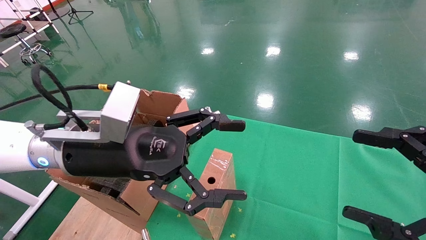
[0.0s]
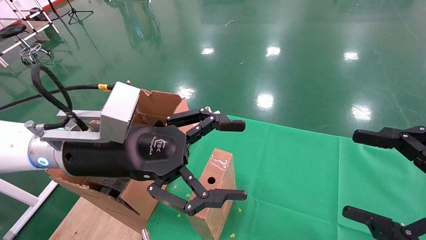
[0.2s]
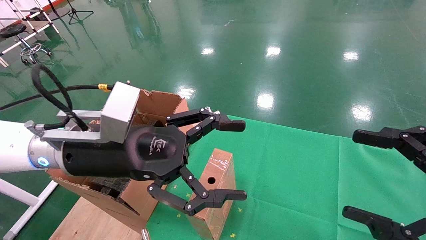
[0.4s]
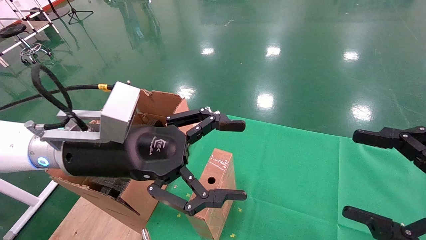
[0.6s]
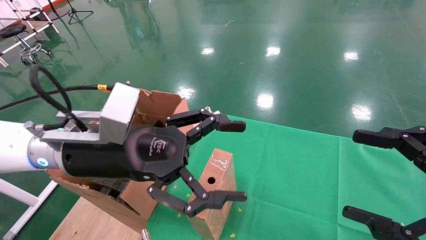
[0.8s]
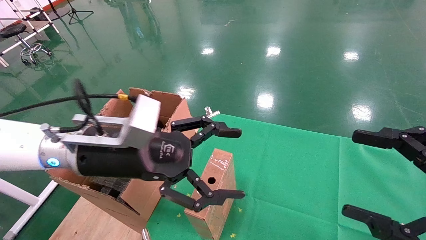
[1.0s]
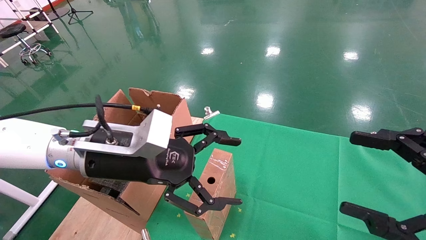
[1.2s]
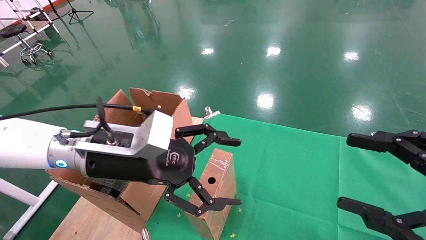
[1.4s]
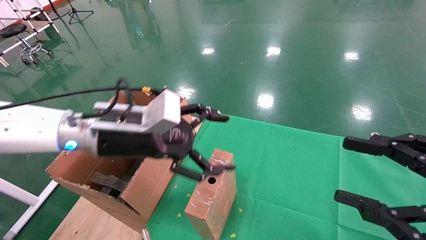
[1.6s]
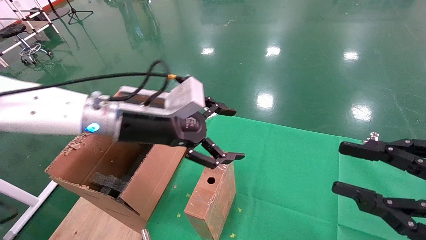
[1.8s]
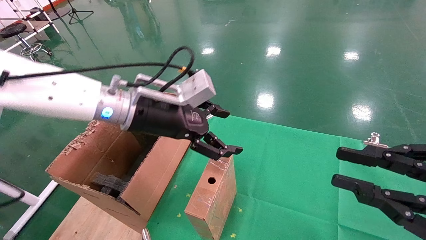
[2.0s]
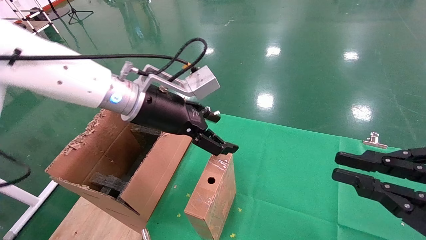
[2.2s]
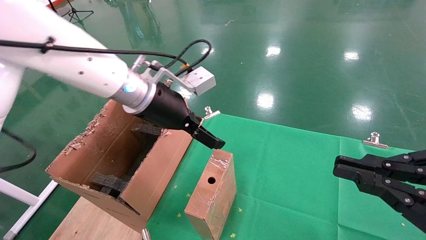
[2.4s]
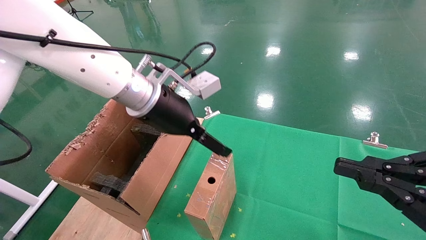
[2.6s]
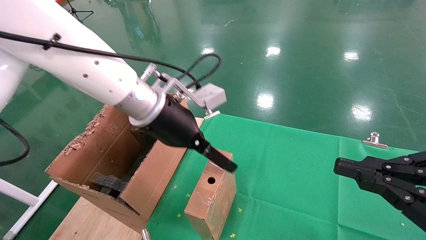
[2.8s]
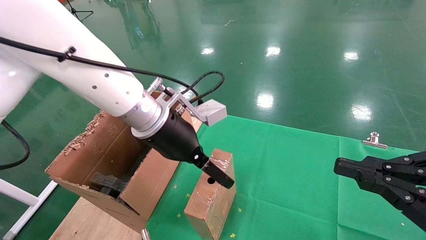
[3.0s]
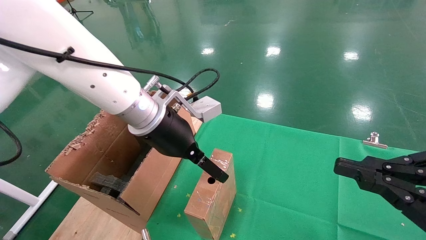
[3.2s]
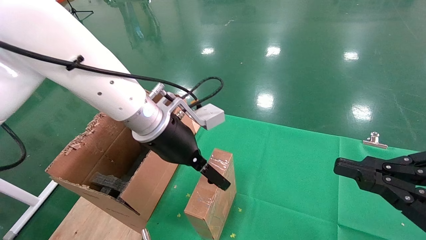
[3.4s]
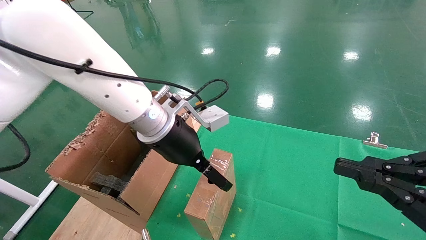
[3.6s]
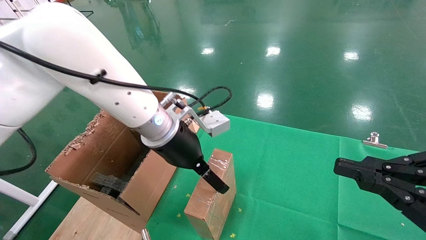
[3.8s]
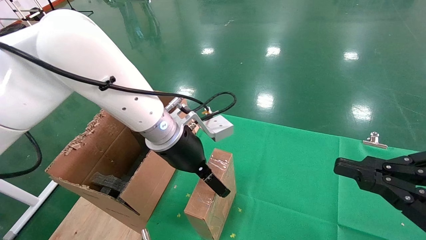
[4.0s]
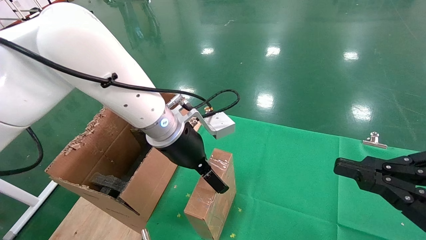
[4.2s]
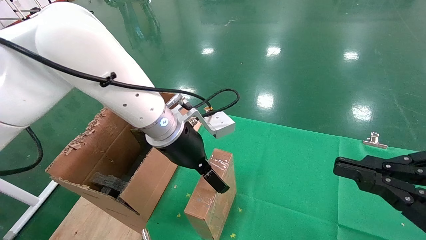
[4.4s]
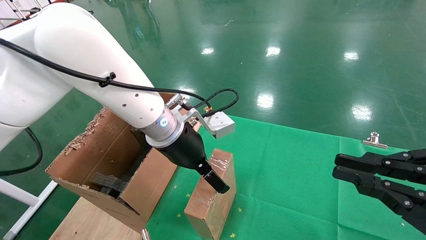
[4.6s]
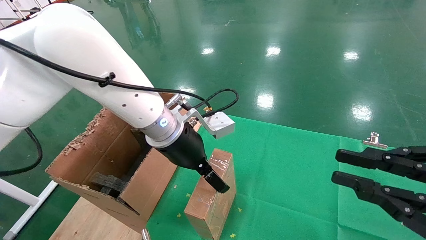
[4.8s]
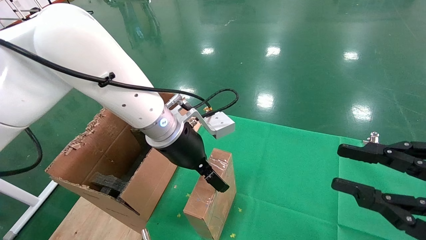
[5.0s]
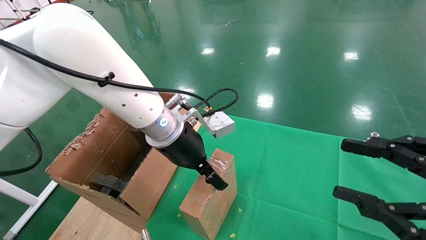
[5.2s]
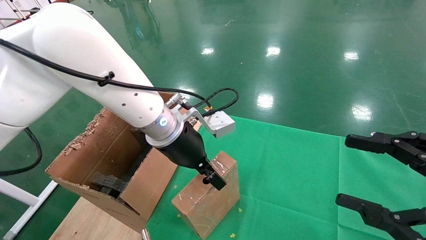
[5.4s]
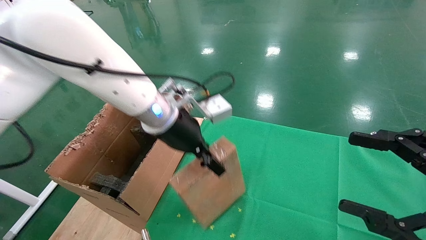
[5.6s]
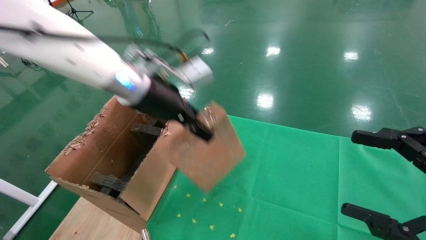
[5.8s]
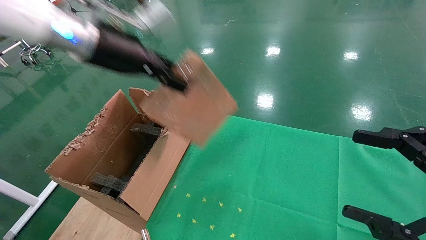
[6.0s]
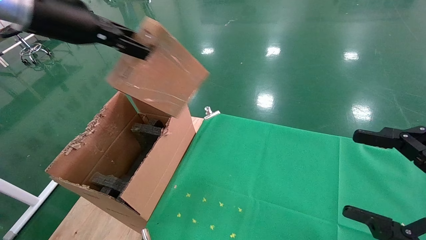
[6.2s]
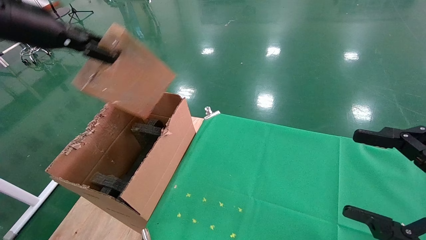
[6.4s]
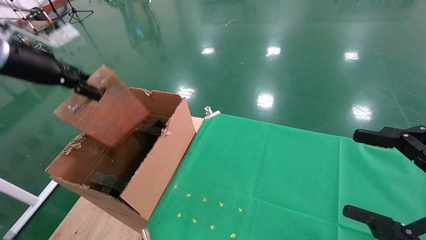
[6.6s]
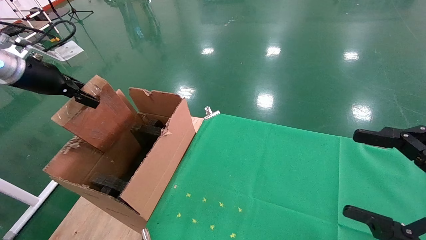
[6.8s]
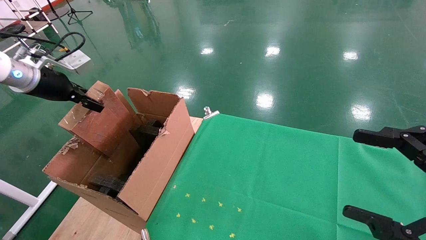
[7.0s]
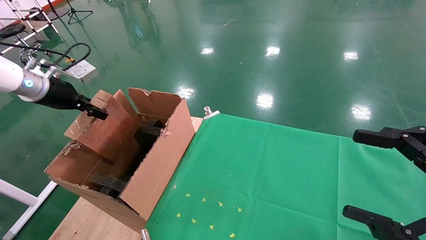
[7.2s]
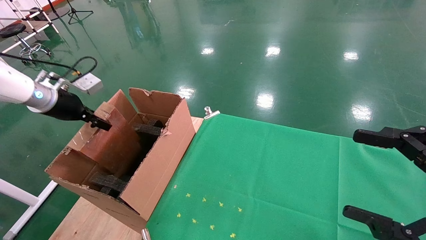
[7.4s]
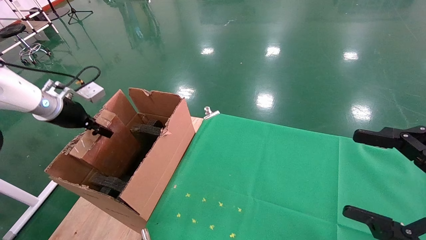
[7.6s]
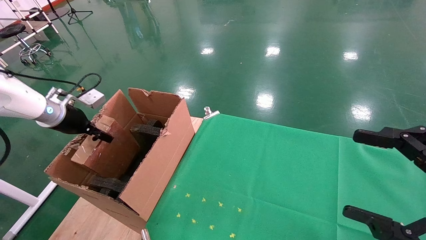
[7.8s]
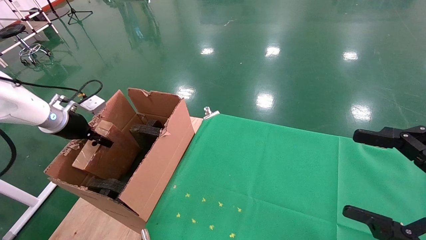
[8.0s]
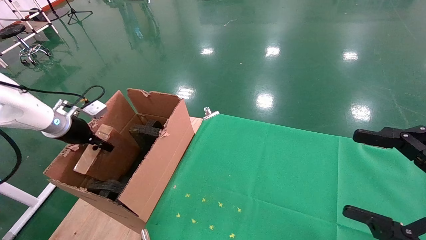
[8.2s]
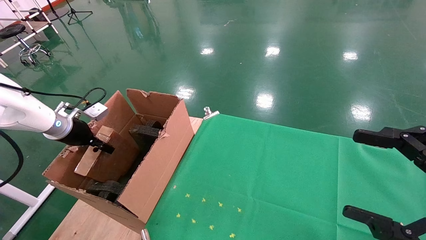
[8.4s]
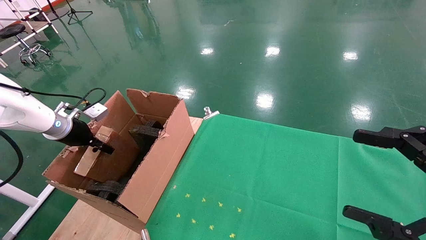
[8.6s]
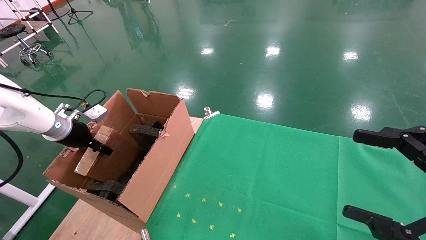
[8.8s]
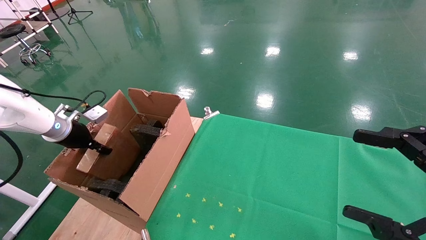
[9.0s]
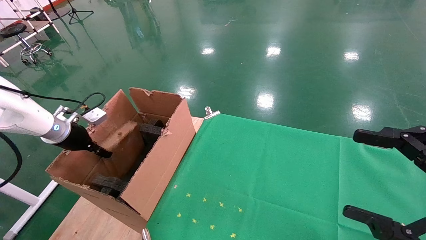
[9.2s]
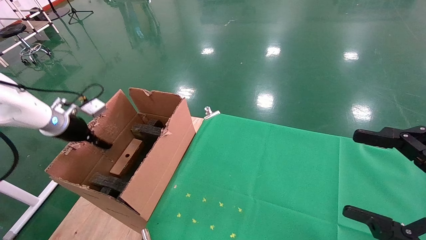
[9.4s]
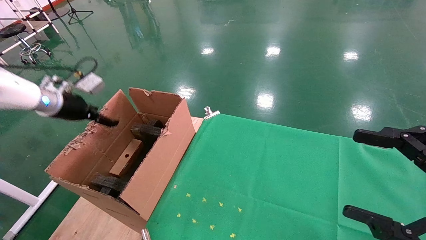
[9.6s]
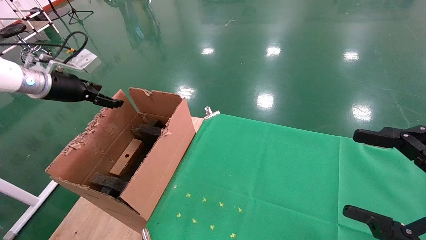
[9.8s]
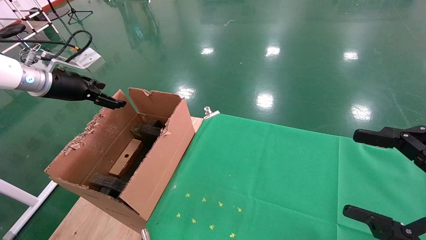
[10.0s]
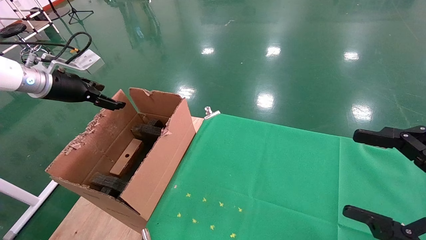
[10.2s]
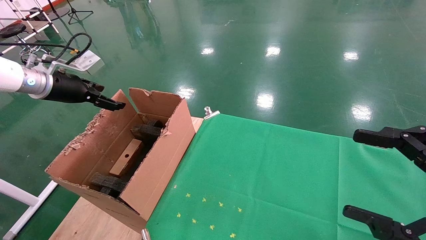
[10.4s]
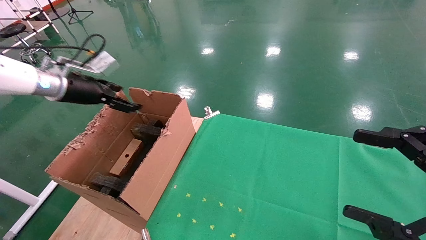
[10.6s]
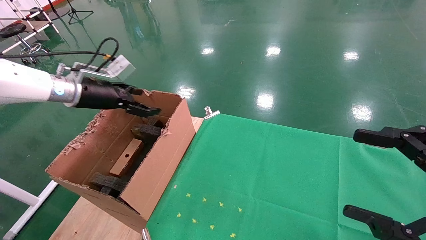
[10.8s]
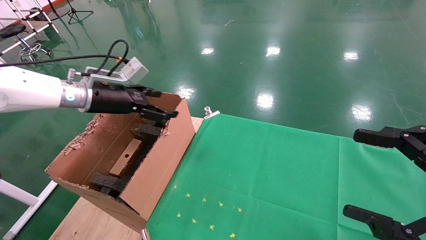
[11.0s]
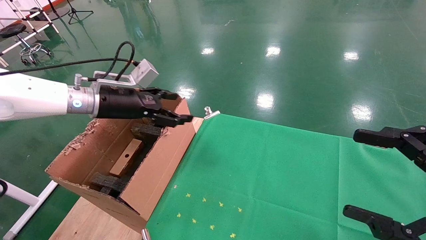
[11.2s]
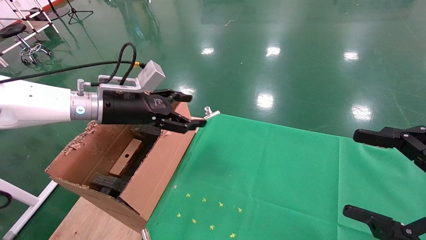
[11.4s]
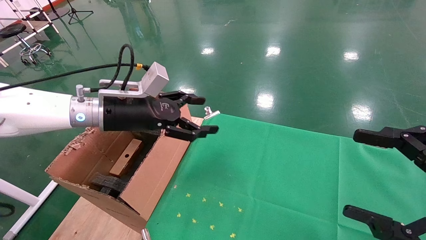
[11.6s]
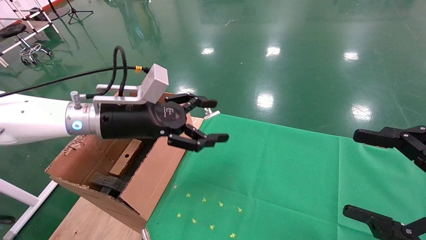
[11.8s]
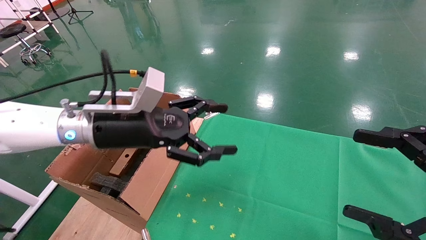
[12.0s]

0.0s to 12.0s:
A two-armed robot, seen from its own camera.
Task of the whole recording: using a robotic arm to pick up a cardboard box and palace it the carton.
Step, 1.2s to 5.6s: Pick up the mouse and the power cord paper box.
Step, 5.8s to 9.6s: Place the mouse and the power cord paper box into the container.
0.0s to 1.6s: The left gripper moves forward, approximately 5 cm.
1.6s to 3.0s: The right gripper closes its fingers, while the left gripper is displaced to the right by approximately 5 cm.
3.0s to 4.4s: There are only small adjustments of the grippers.
4.4s to 6.0s: The left gripper is displaced upward and to the left by some 20 cm, and closes its fingers. The right gripper opens its fingers.
6.0s to 7.6s: The left gripper goes about 25 cm to the left and downward.
7.6s to 9.0s: The left gripper shifts roughly 5 cm downward.
9.0s to 10.4s: The left gripper moves upward, about 10 cm, and opens.
10.4s to 12.0s: The left gripper shifts roughly 25 cm to the right and backward.

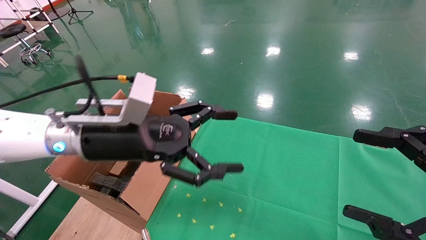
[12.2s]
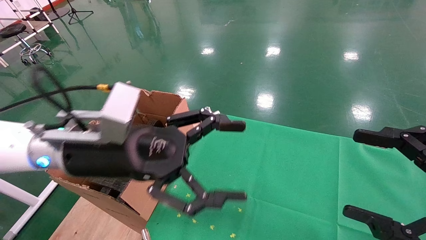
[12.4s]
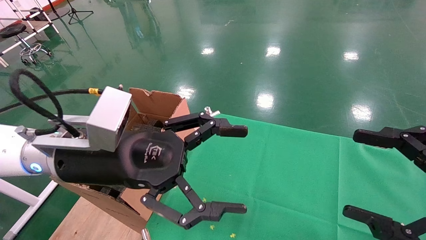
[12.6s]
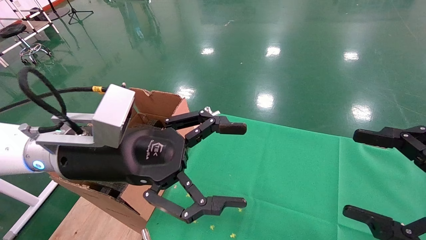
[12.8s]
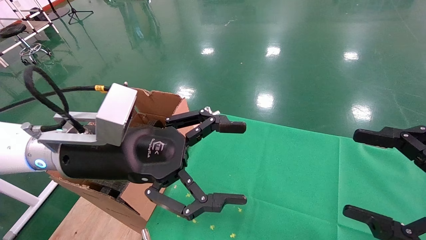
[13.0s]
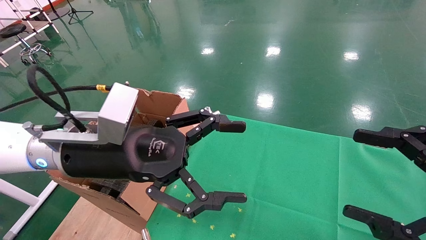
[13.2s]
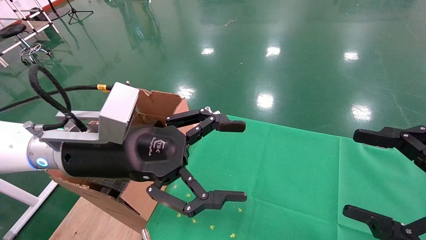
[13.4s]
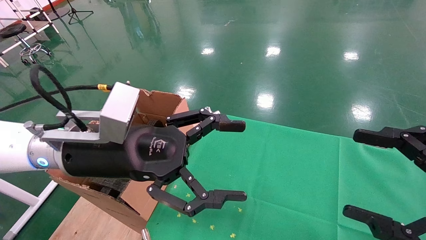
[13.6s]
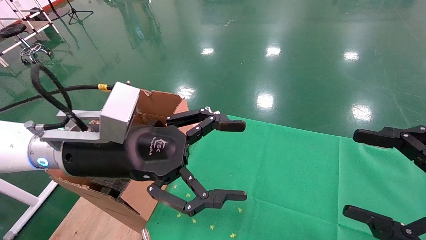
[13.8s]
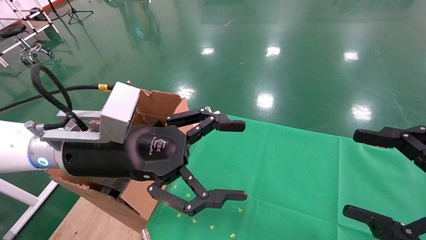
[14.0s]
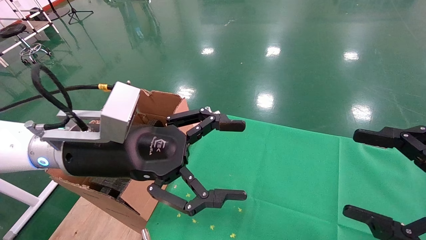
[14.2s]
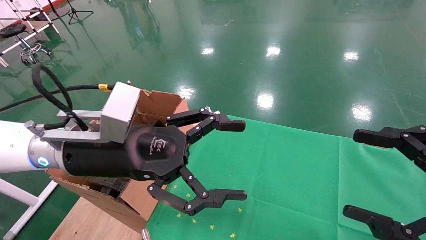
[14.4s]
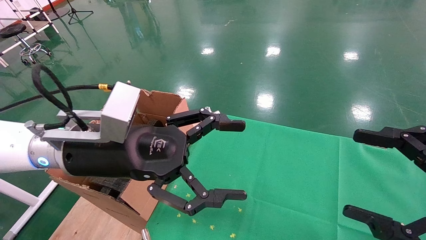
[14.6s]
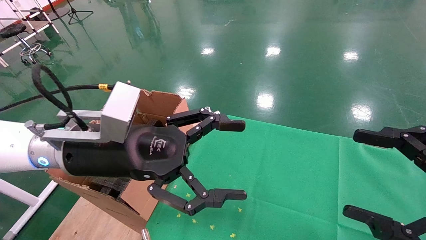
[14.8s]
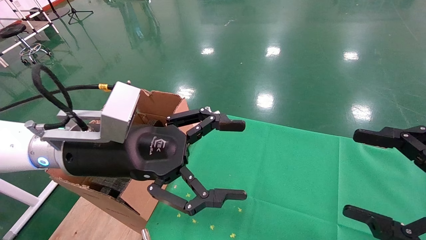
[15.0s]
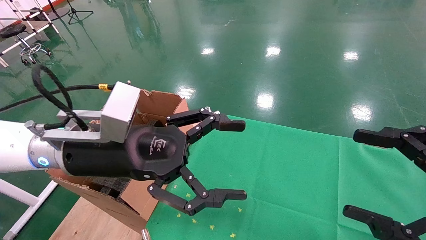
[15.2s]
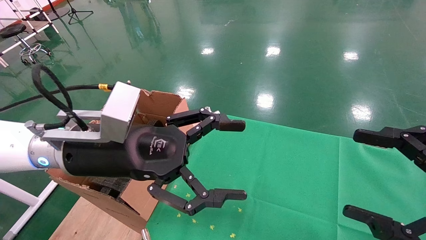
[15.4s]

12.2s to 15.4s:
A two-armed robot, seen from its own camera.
Task of the whole recording: using a robotic arm to pick up a cardboard box and palace it the carton.
12.2s to 13.8s: There are only small adjustments of the grippers.
13.8s to 15.4s: The two grippers keep their place.

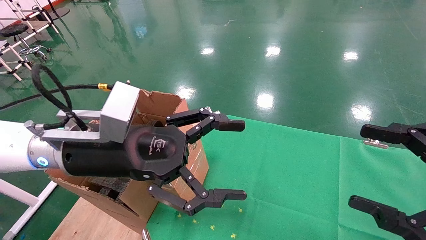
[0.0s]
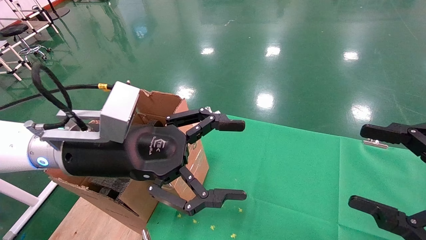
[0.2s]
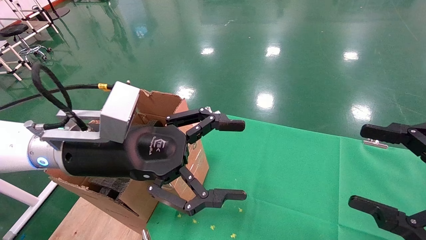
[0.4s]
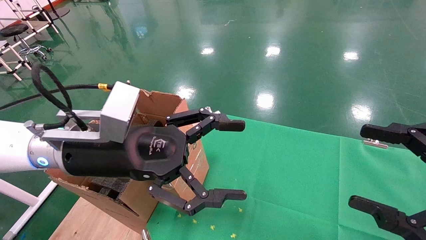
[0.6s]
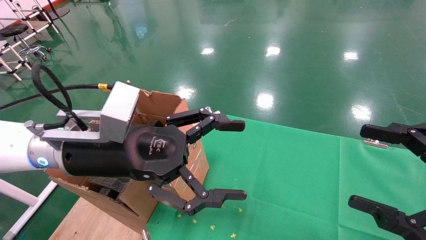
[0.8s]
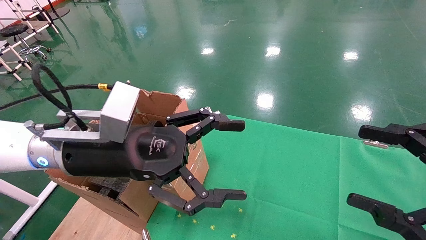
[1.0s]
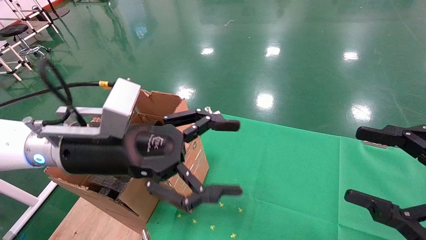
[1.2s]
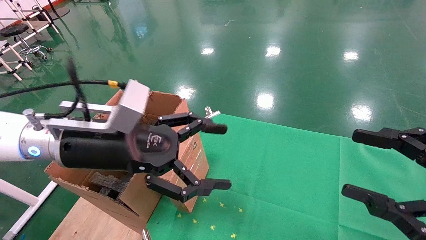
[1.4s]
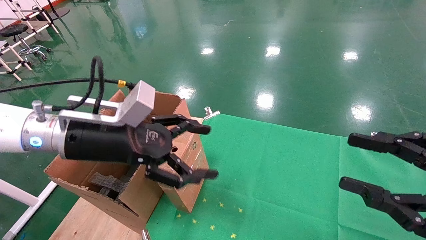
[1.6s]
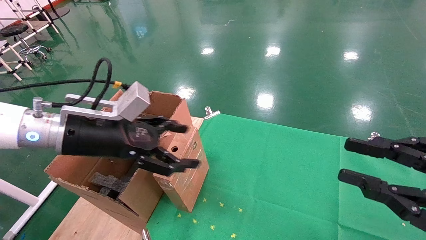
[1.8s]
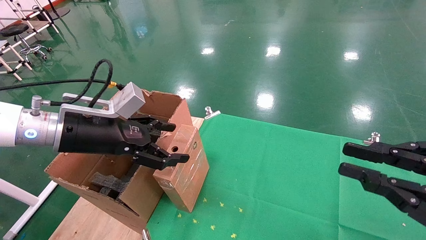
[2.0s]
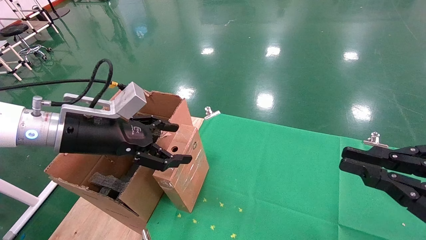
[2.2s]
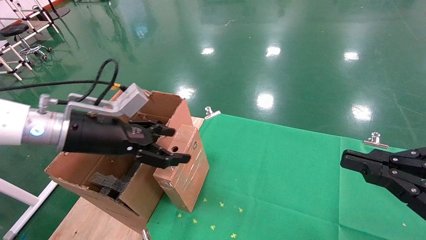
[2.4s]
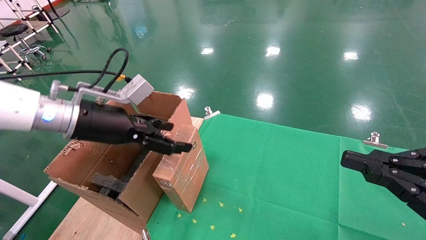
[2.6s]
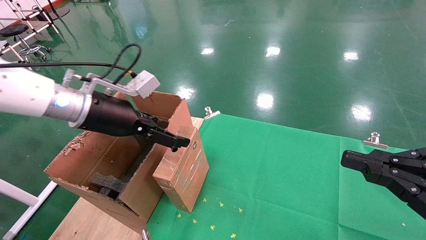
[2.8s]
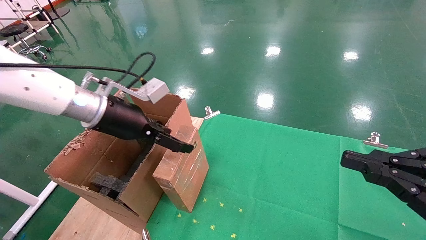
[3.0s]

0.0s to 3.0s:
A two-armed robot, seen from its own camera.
Task of the whole recording: using a robotic arm to pick up a cardboard box and palace it the carton.
0.0s to 1.6s: The right gripper closes its fingers.
1.6s to 3.0s: The right gripper closes up. Meanwhile the left gripper moves forward, about 5 cm.
